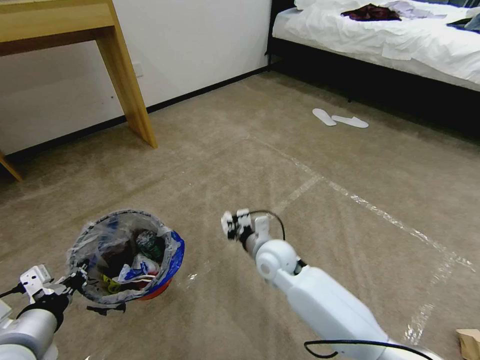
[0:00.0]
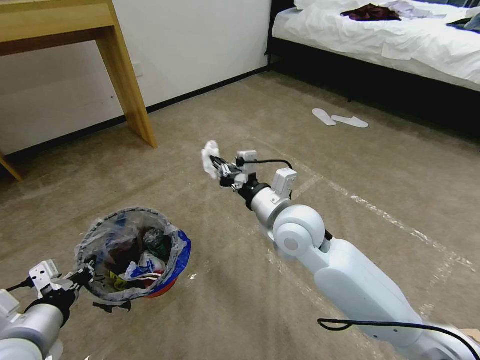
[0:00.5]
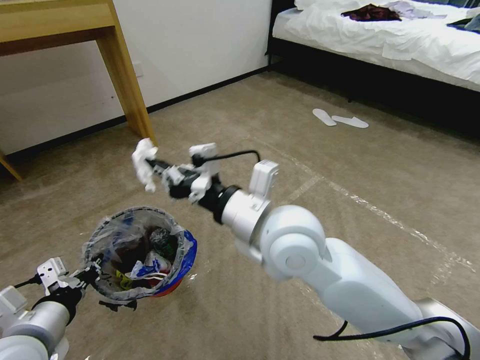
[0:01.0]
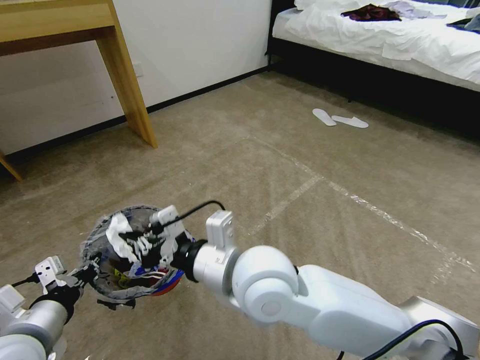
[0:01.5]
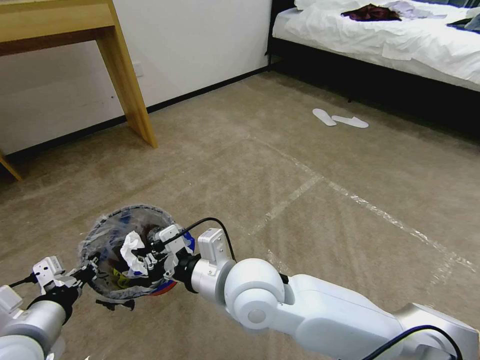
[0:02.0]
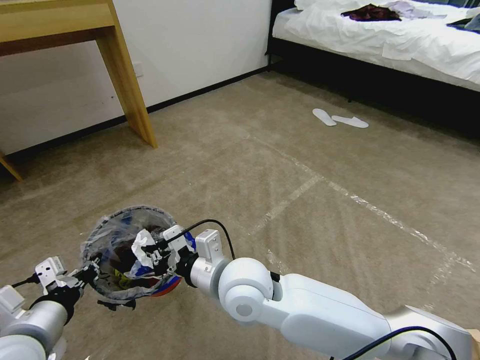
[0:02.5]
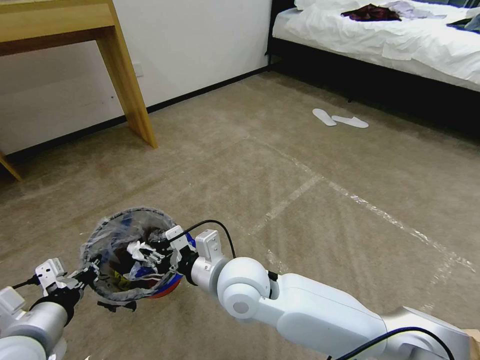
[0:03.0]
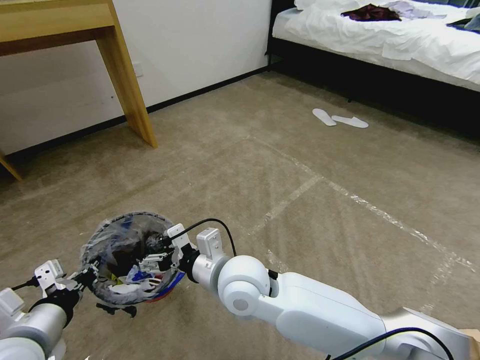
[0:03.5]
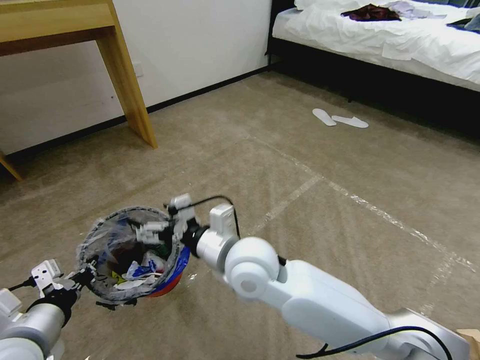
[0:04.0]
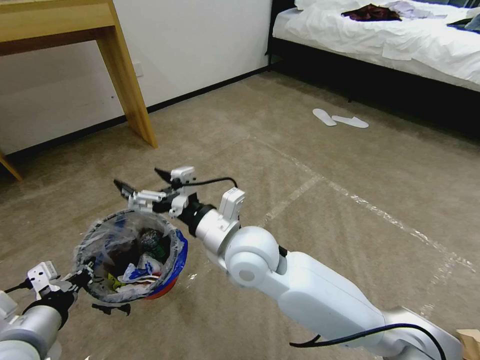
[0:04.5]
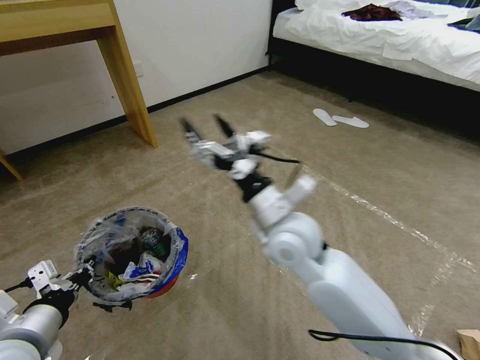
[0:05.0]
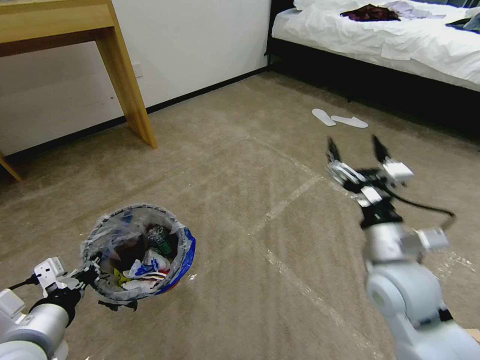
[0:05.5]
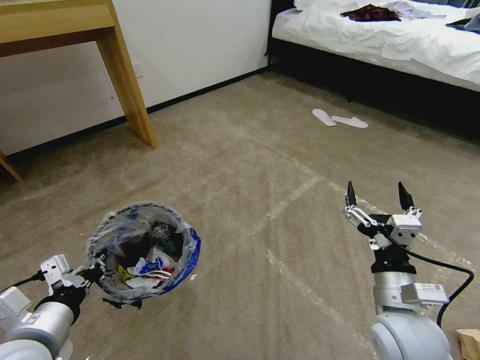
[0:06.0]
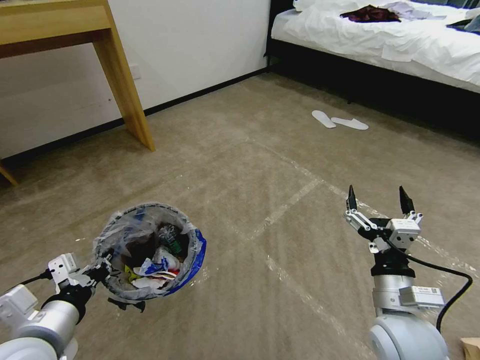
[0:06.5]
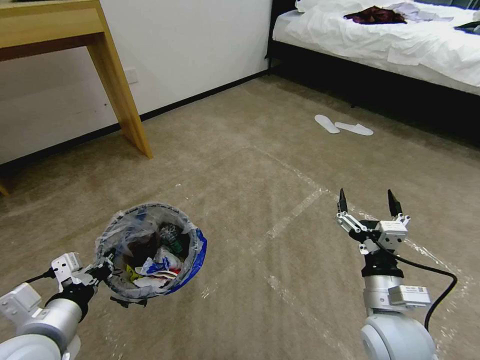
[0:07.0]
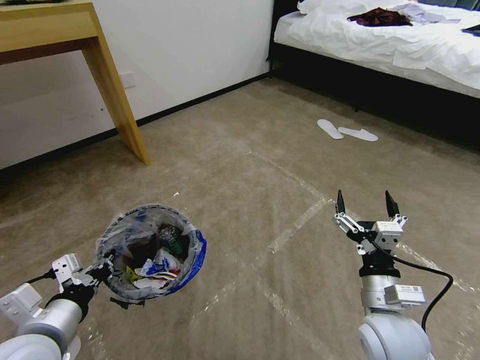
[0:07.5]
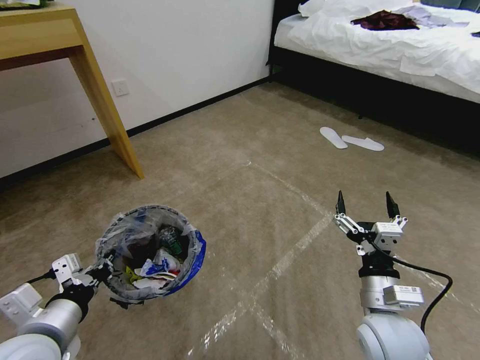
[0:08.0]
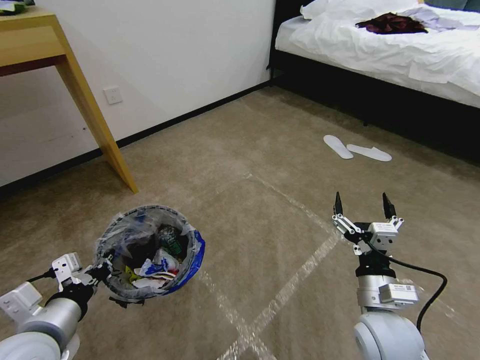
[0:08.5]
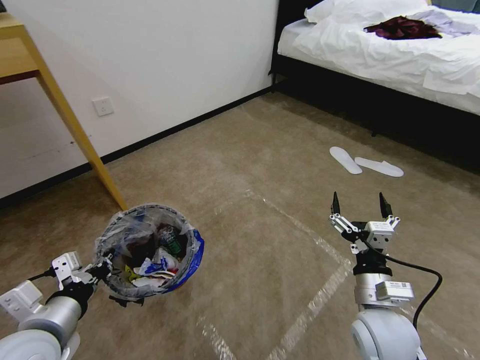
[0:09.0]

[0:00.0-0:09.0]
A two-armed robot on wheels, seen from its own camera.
Task of the whole recording: Pick up the trash bin and place the garbage on the floor into it.
0:00.0 to 0:02.0: The right gripper moves backward, upward and to the left, approximately 20 cm.
0:02.0 to 0:04.5: The right gripper heads forward, covering about 5 cm, and opens.
0:04.5 to 0:07.0: The right gripper goes approximately 25 cm to the right and backward.

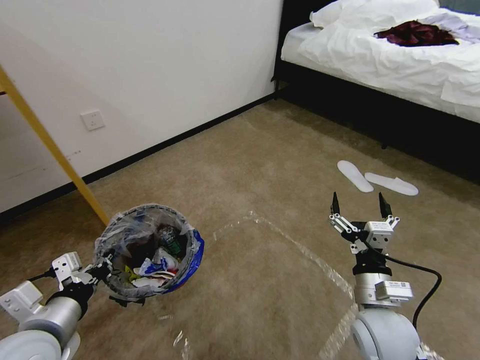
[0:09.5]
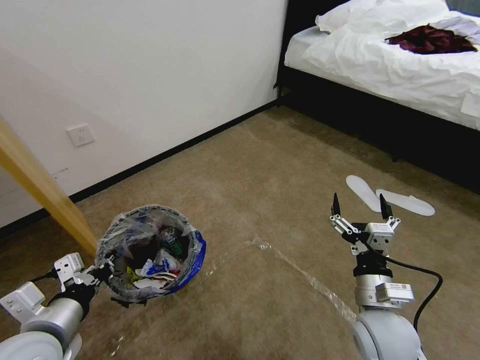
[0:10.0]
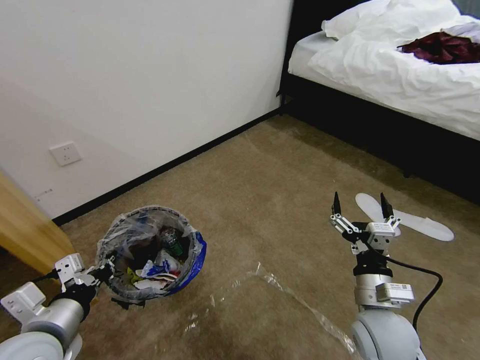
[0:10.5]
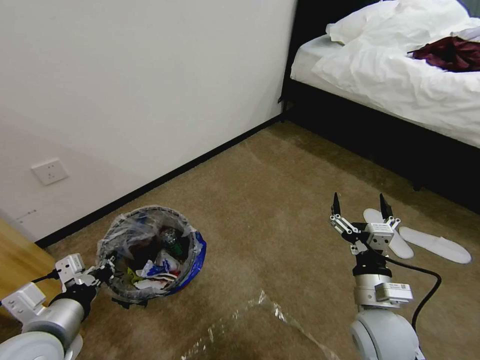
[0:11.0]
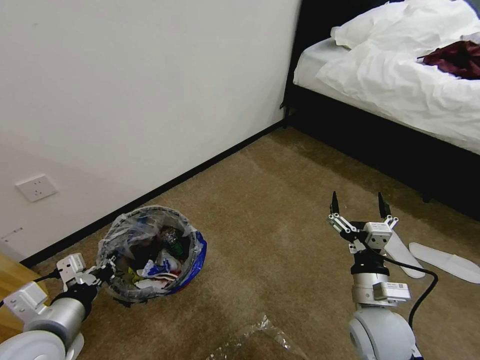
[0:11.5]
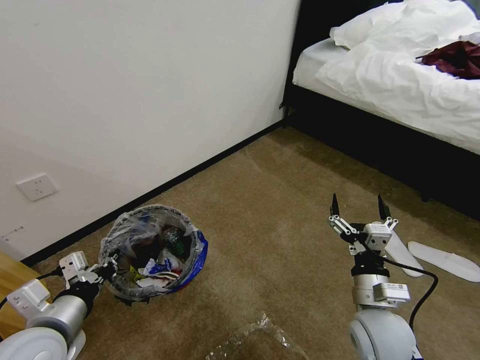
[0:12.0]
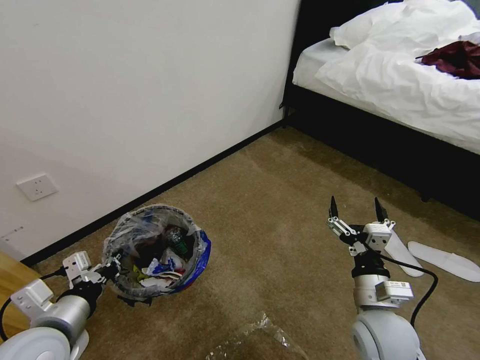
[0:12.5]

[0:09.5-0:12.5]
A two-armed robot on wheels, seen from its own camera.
Task of the whole recording: Pick up the trash bin and place the garbage on the floor into it.
0:11.0 to 0:12.5: Both grippers stay about where they are.

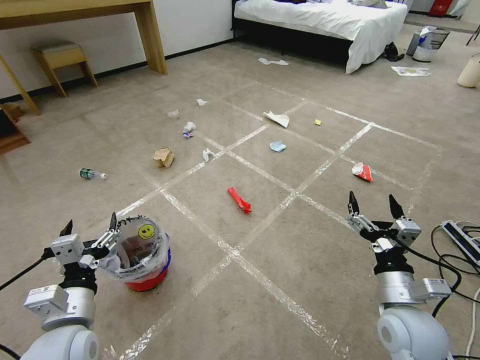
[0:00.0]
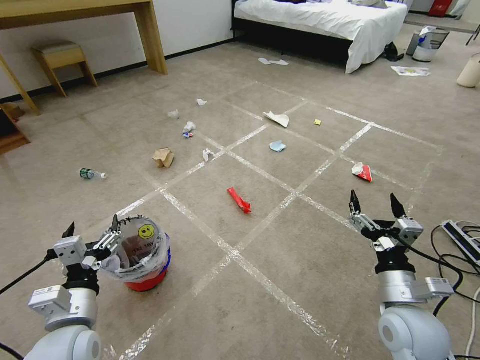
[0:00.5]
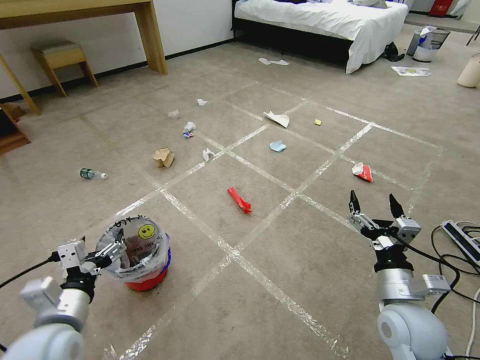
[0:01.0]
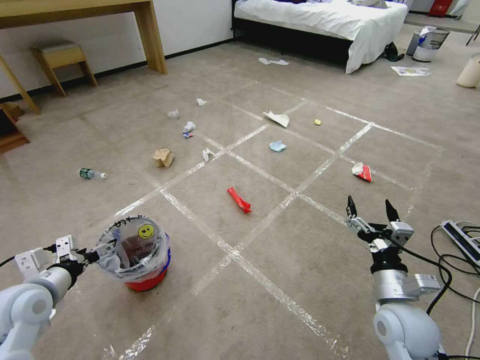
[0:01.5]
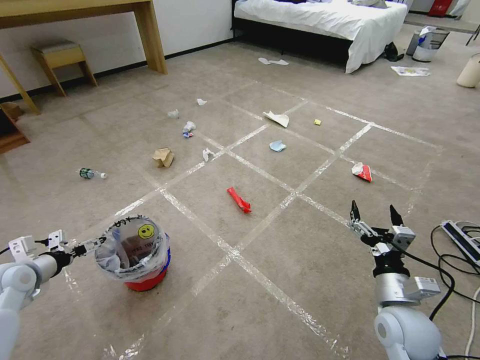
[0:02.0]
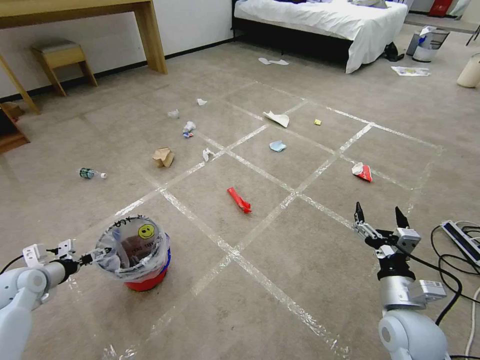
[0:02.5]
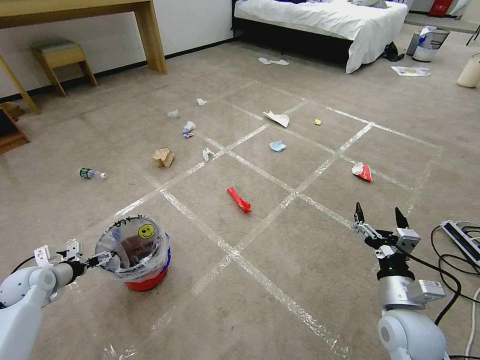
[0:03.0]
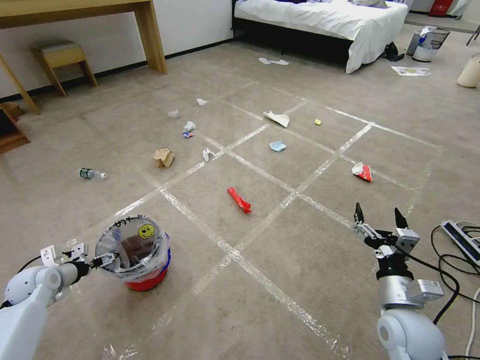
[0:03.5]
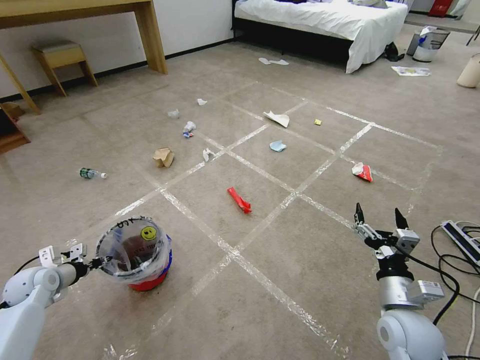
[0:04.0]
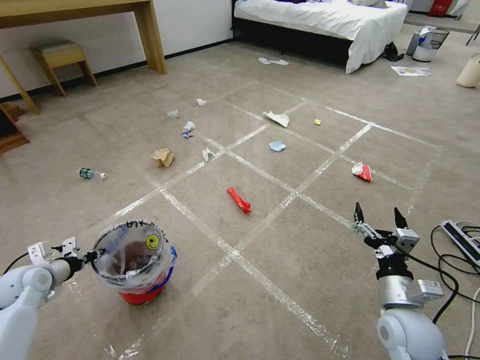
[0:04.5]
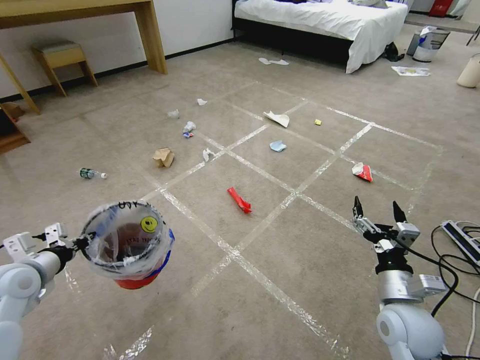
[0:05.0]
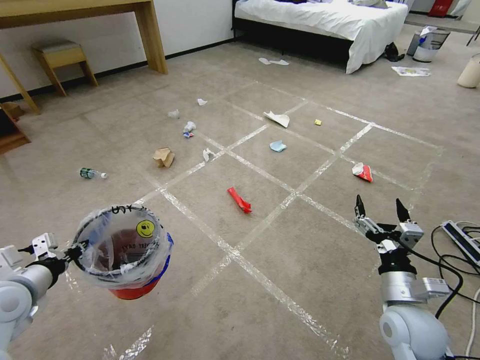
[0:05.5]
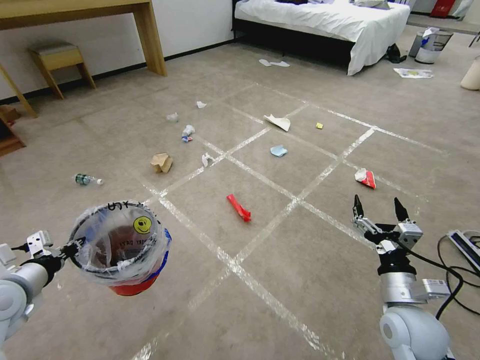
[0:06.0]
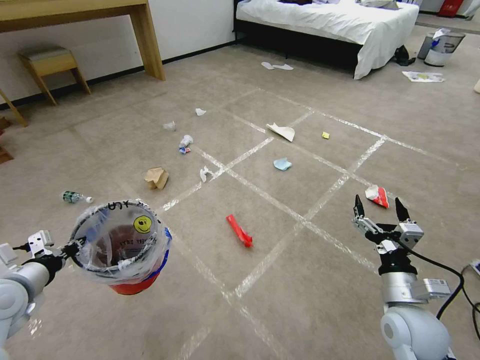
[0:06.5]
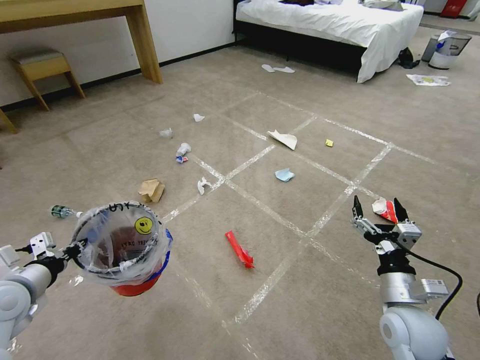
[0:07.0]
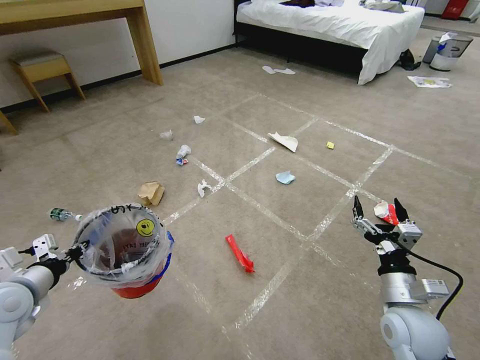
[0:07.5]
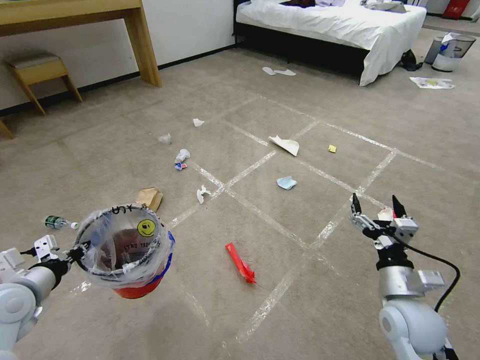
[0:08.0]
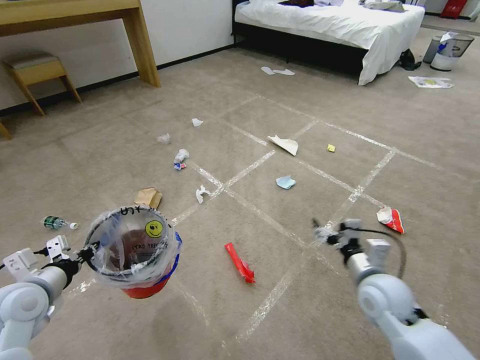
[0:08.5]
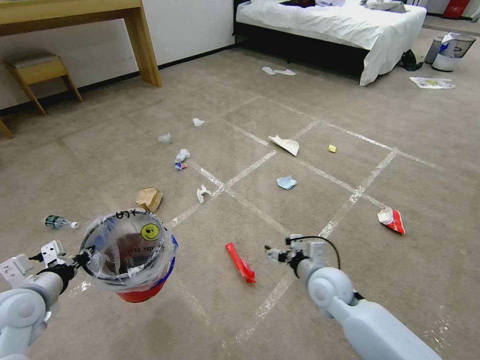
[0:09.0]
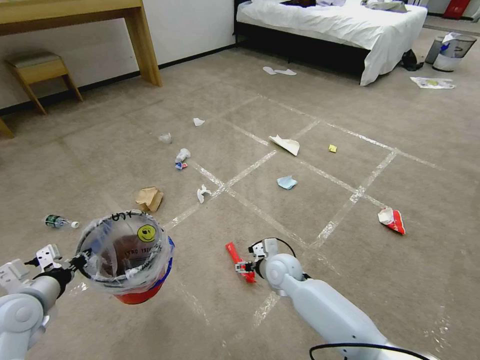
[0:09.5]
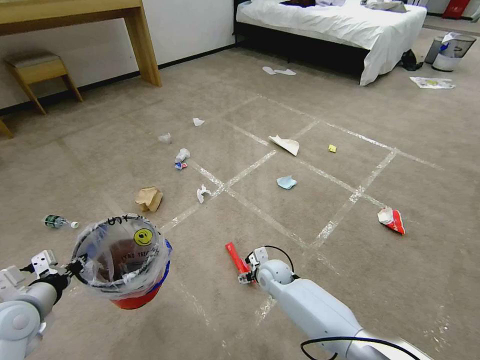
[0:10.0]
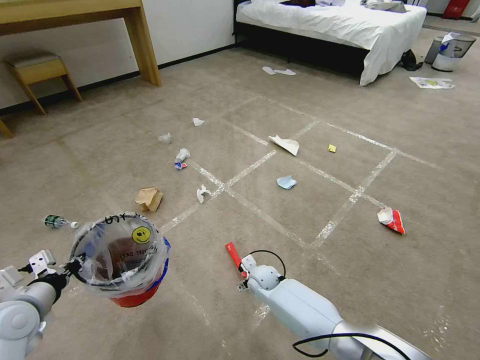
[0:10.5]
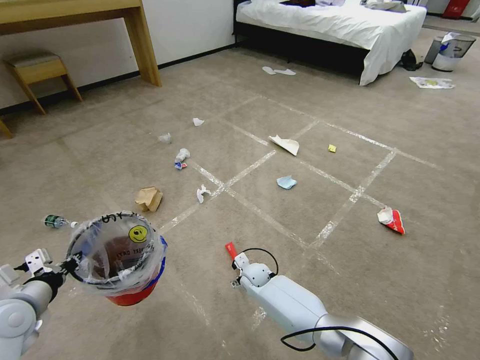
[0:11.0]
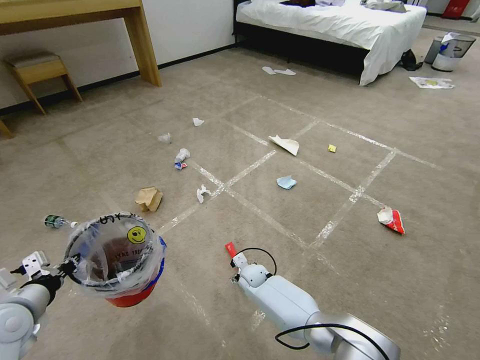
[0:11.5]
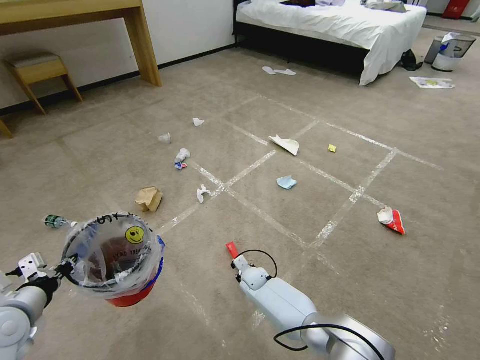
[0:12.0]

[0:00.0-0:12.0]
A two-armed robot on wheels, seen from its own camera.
Task of the whole recording: Pick up the trash bin and place the garbage on the floor into it.
0:02.0 to 0:04.0: The left gripper goes some 5 cm downward, and closes its fingers.
0:04.0 to 0:06.0: The left gripper travels upward, backward and to the right by some 20 cm.
0:08.0 to 0:10.0: The right gripper travels to the left, forward and downward by about 30 cm.
0:10.0 to 0:12.0: The right gripper shifts roughly 10 cm downward, and closes.

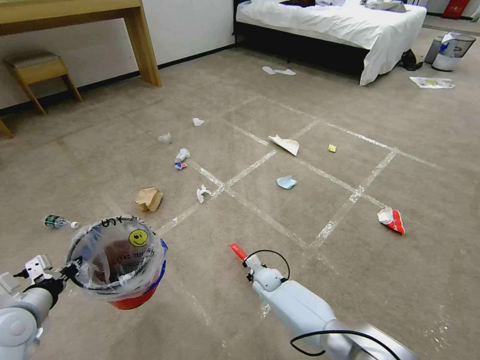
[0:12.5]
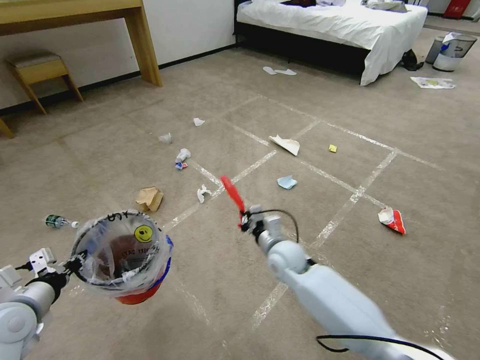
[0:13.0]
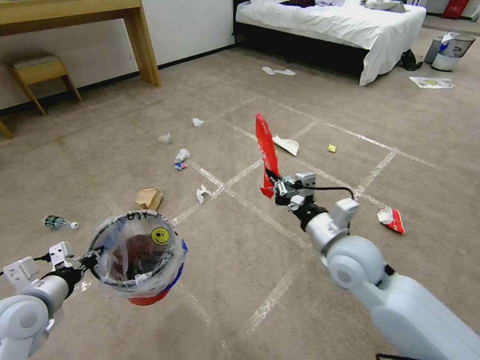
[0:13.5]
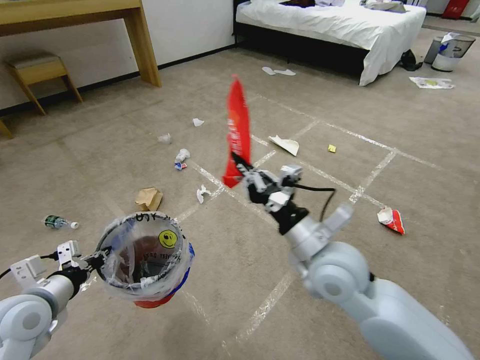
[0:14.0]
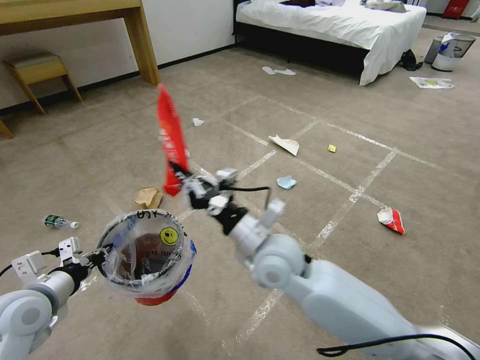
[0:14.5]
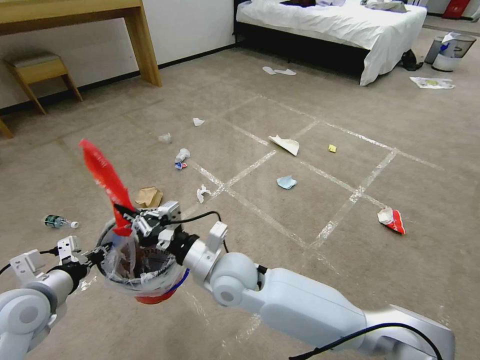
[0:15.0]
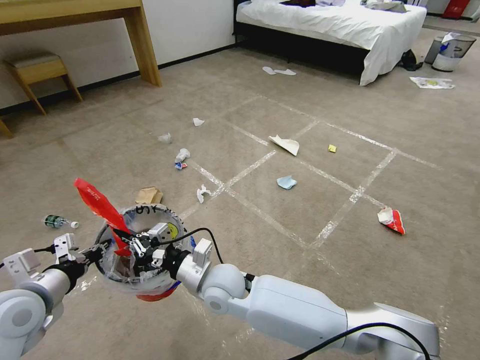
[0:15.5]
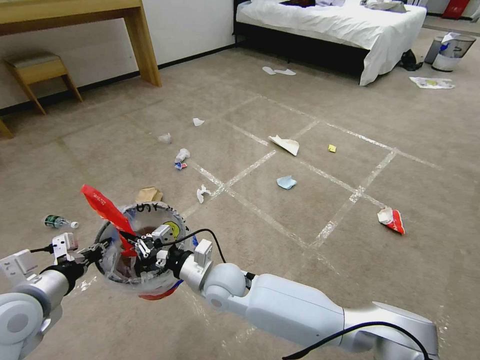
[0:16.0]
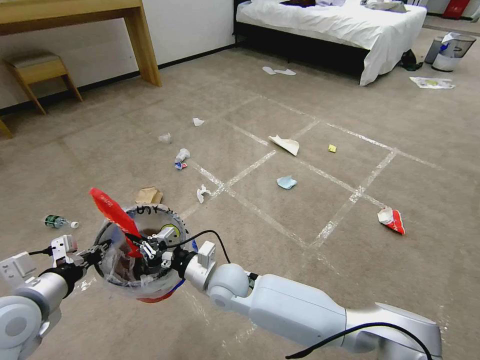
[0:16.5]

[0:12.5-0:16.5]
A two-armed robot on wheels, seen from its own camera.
Task of the whole recording: Pick up the trash bin and place the garbage on the floor into it.
0:12.5 to 0:14.5: The right gripper moves upward, some 35 cm; the left gripper moves about 5 cm.
0:14.5 to 0:16.5: The right gripper moves downward and to the left, about 15 cm.
